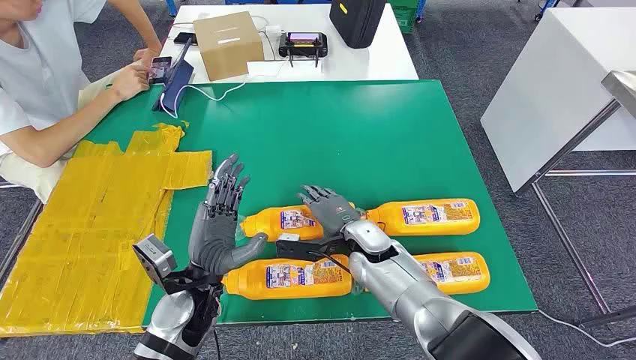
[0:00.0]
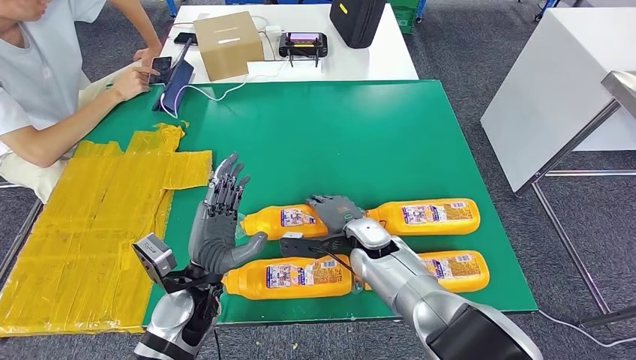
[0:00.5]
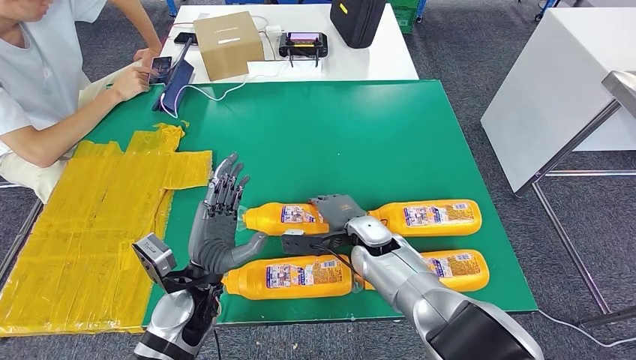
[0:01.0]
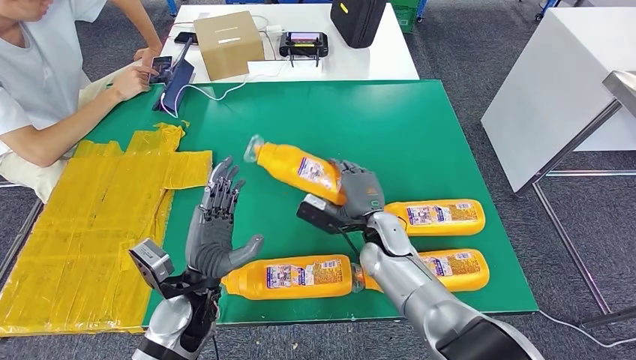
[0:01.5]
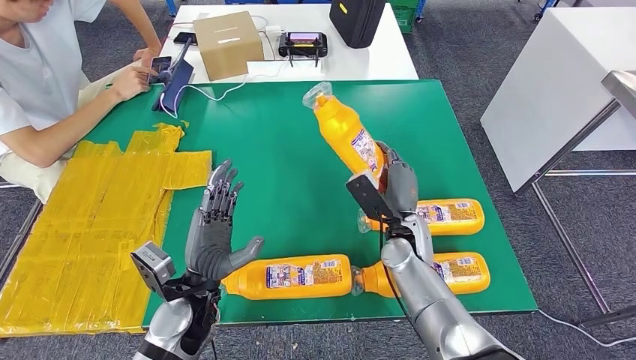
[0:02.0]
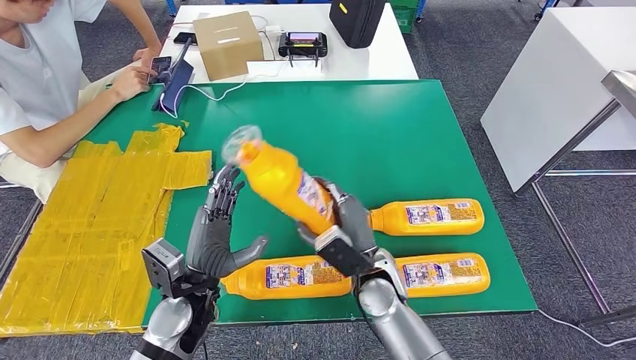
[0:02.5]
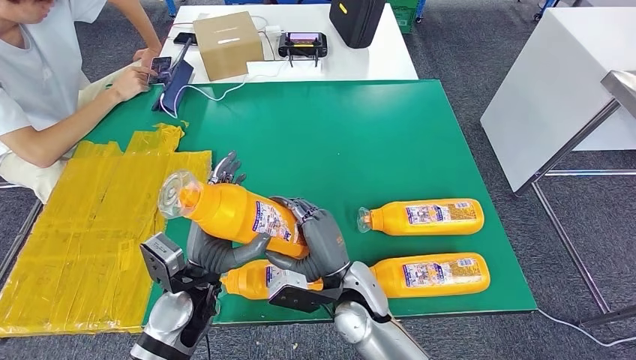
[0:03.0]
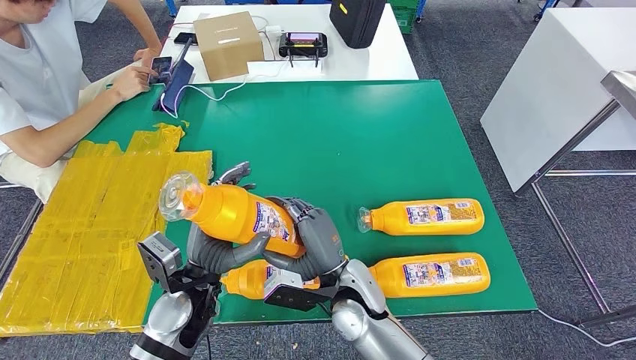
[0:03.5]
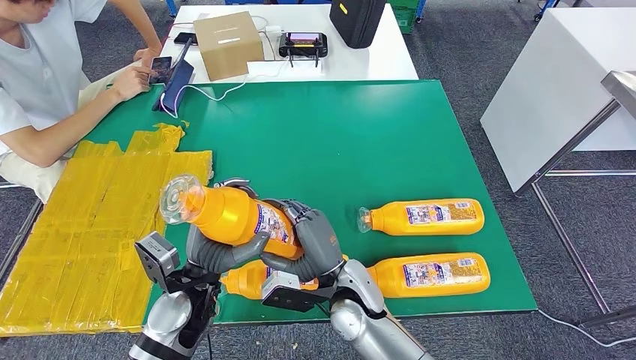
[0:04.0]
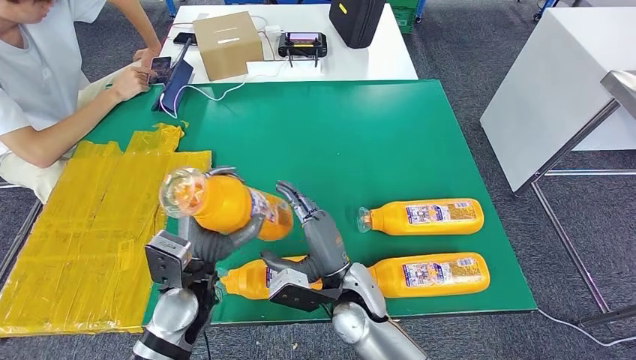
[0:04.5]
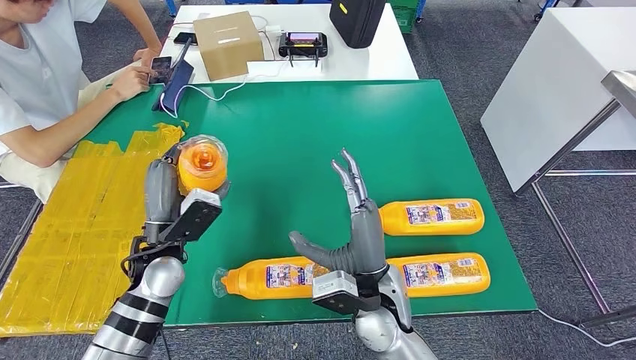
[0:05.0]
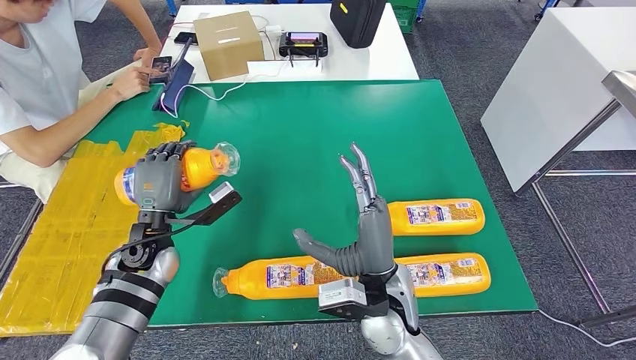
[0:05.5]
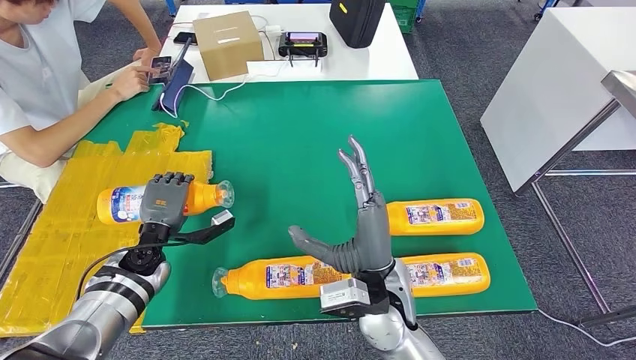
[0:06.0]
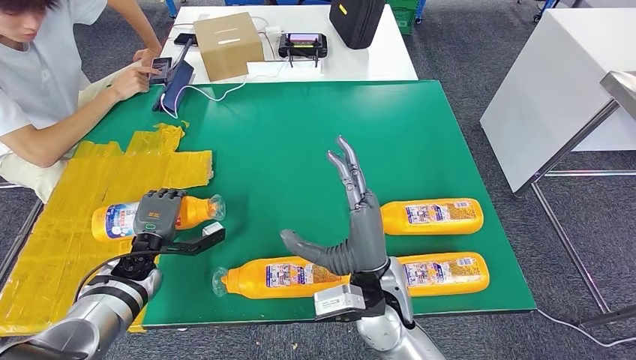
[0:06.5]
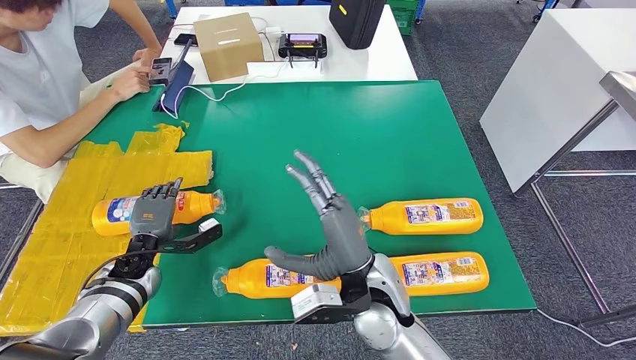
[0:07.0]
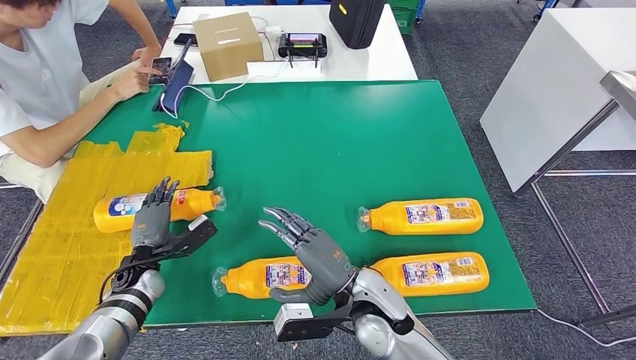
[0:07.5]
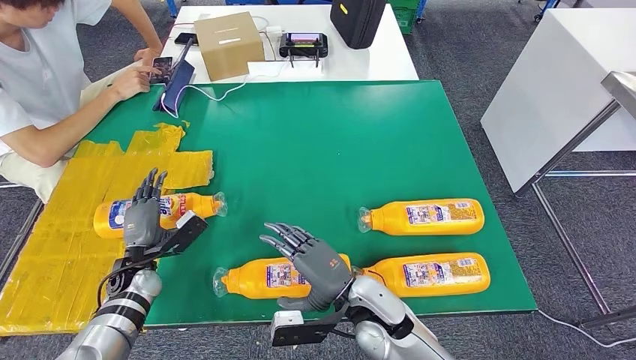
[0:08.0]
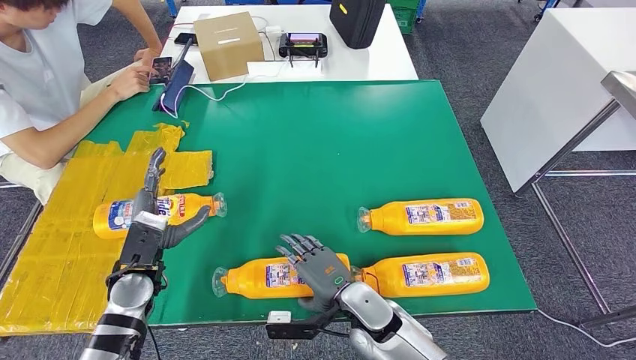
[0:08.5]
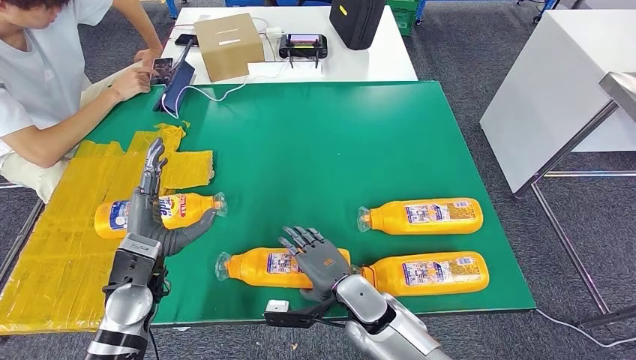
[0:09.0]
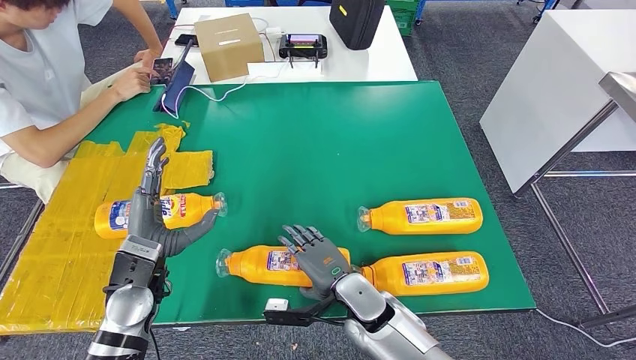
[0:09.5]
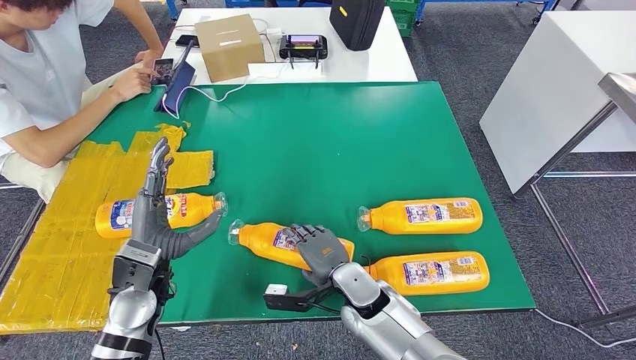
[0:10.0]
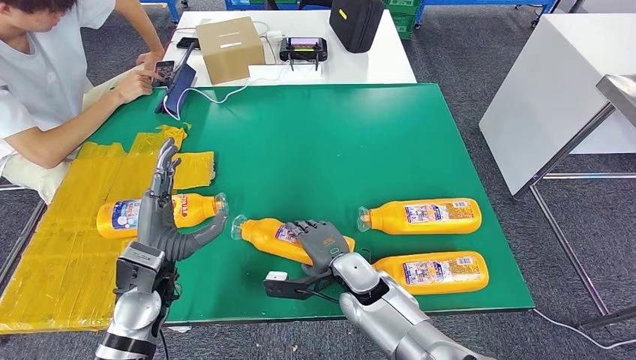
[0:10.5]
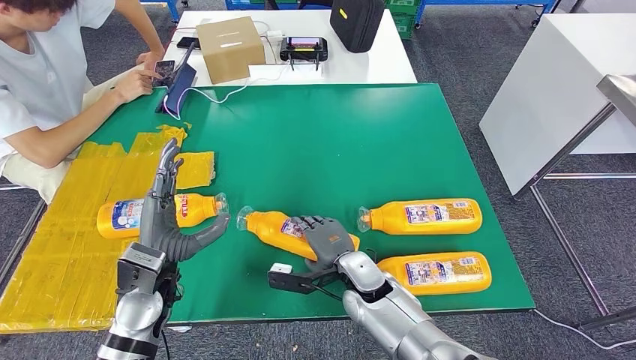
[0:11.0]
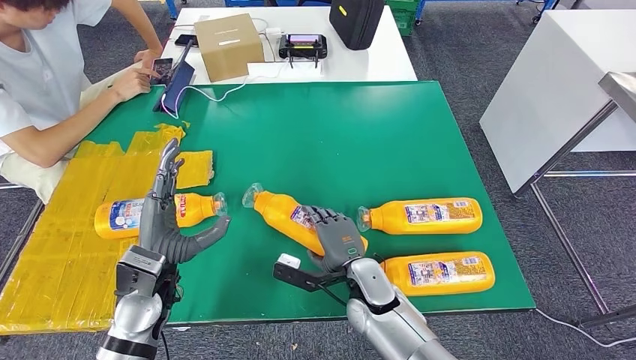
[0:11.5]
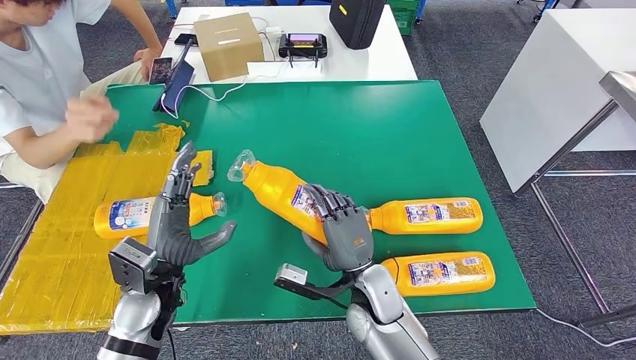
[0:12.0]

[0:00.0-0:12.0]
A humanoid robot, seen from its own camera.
Step, 0:00.0 to 0:02.5: Take the fast-moving consumer goods bottle from the table.
Step, 0:04.5 to 0:07.5: Flip the fast-moving consumer goods bottle to the front side.
0:02.0 to 0:04.0: The right hand heads to the left and backward, covering some 15 cm.
0:04.0 to 0:06.0: The right hand travels upward by roughly 5 cm. Meanwhile the left hand moves to the left, forward and downward, some 20 cm.
0:06.0 to 0:08.0: The right hand goes some 10 cm downward, while the left hand moves some 5 cm.
0:08.0 to 0:10.0: The left hand travels upward, to the right and backward by some 15 cm. Meanwhile the right hand shifts by some 5 cm.

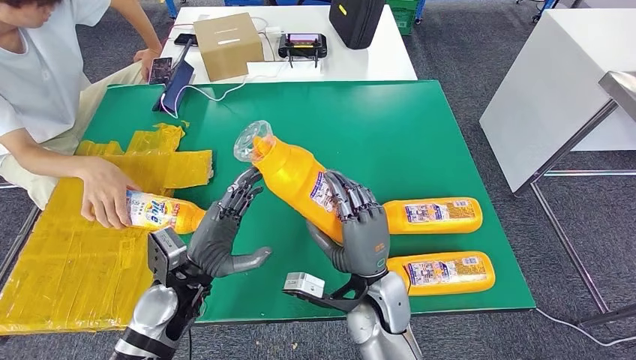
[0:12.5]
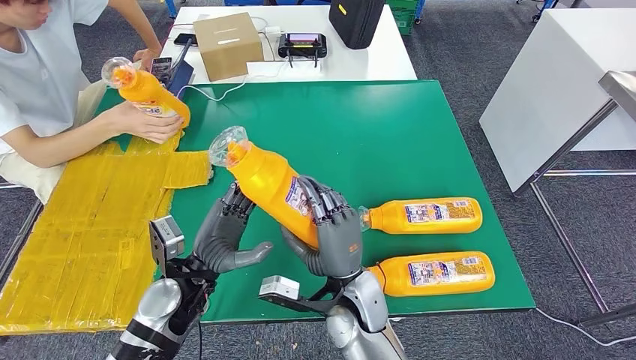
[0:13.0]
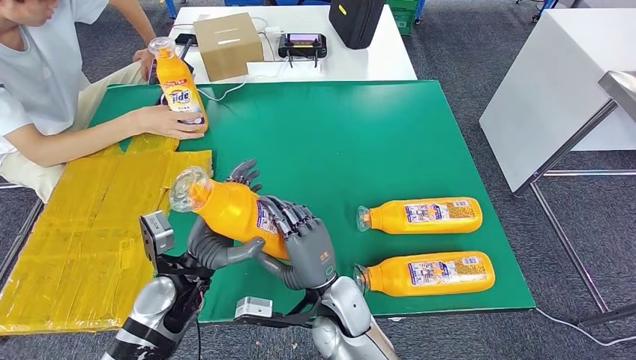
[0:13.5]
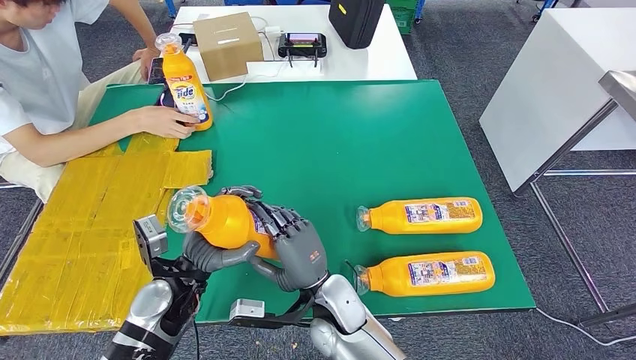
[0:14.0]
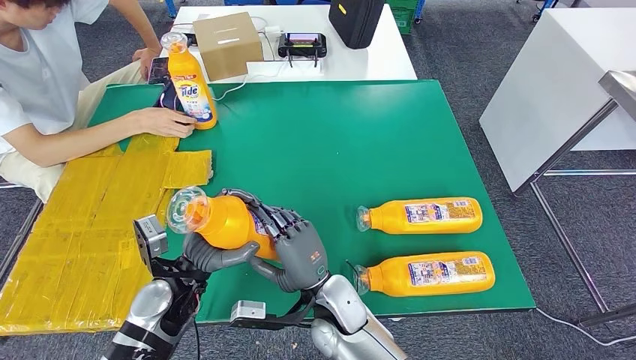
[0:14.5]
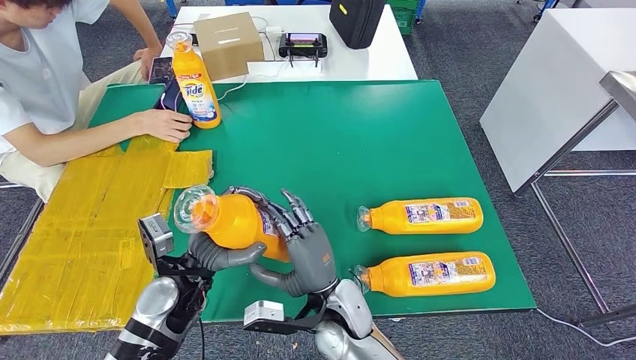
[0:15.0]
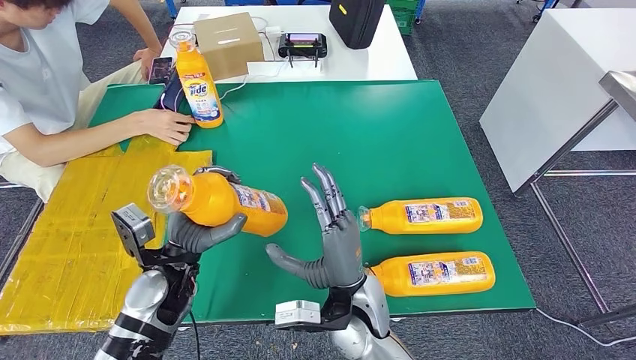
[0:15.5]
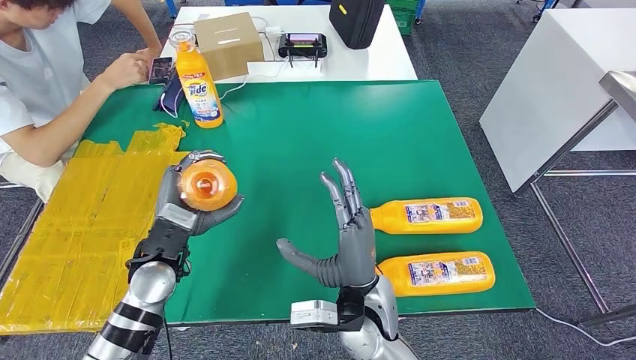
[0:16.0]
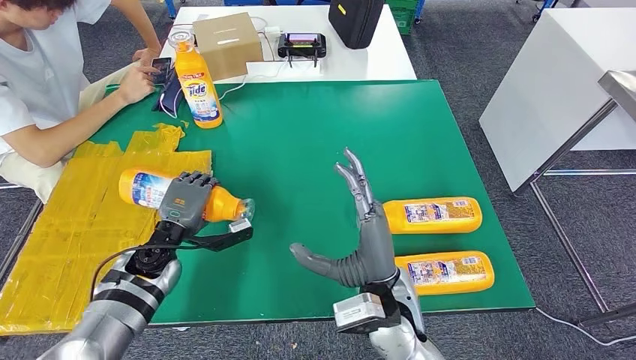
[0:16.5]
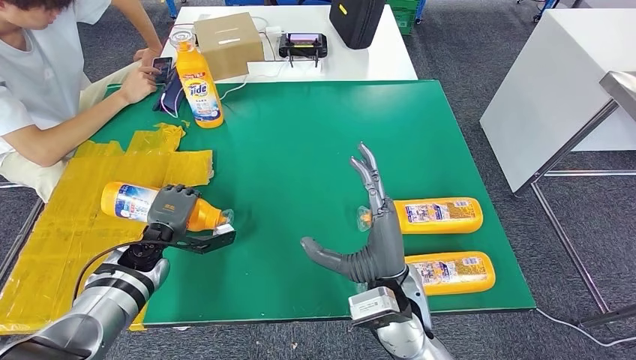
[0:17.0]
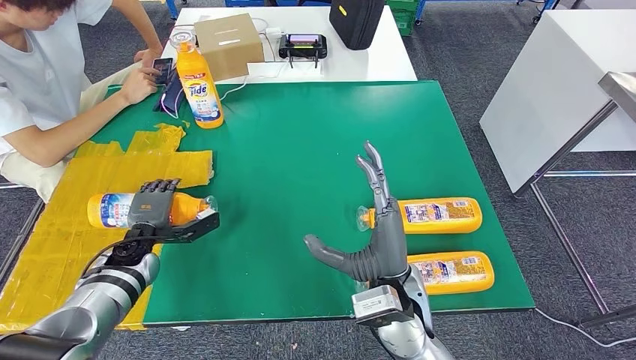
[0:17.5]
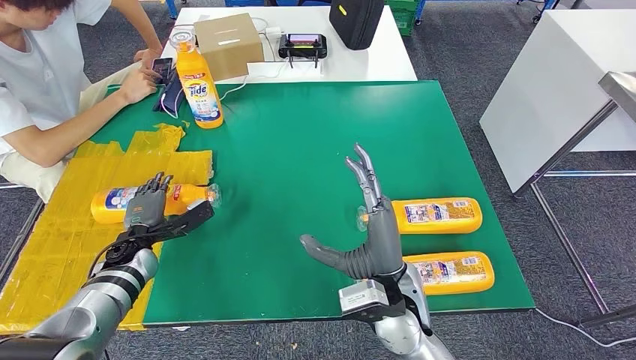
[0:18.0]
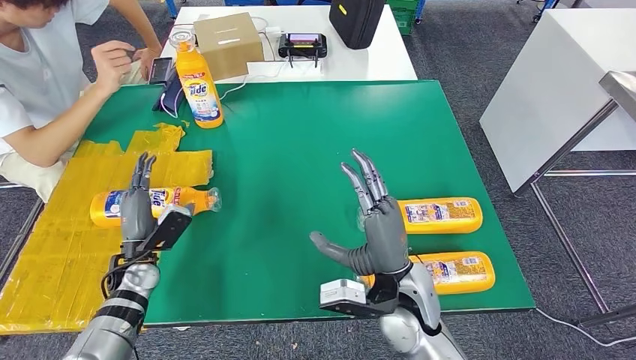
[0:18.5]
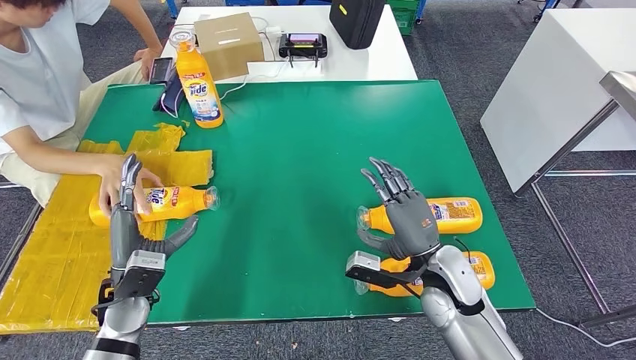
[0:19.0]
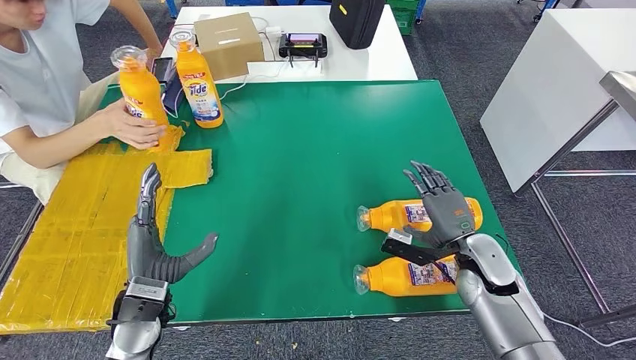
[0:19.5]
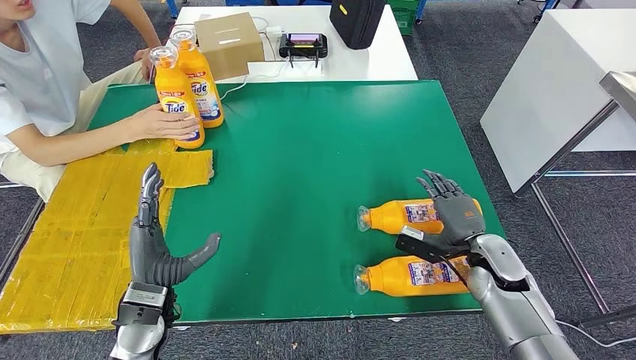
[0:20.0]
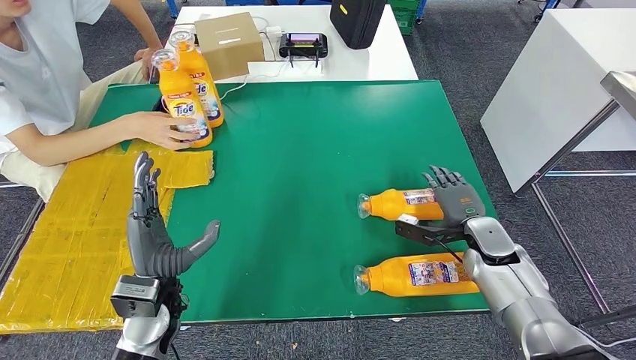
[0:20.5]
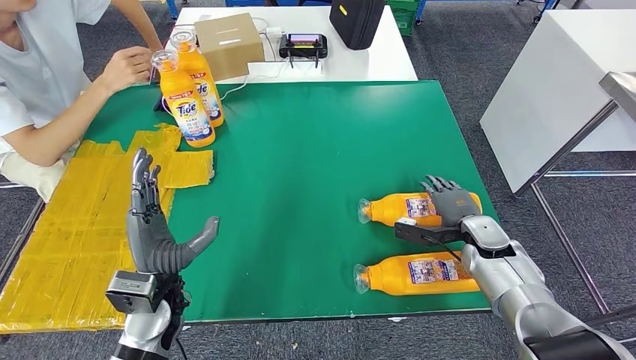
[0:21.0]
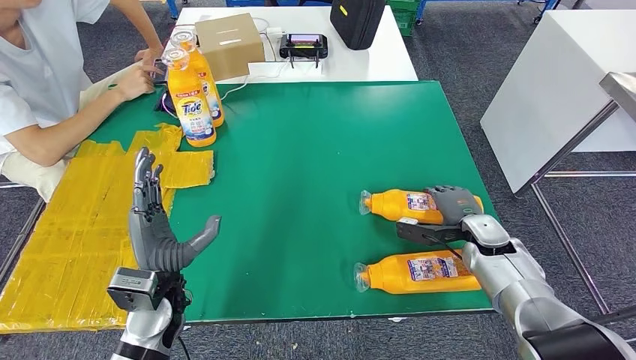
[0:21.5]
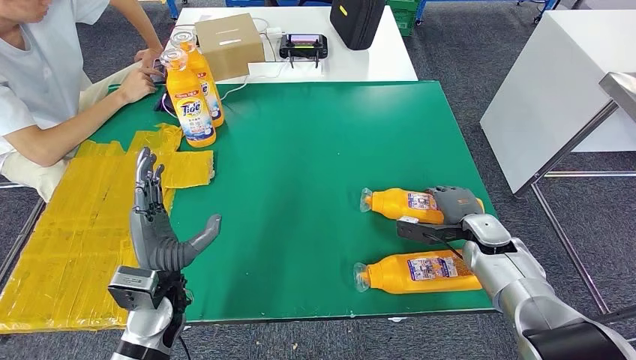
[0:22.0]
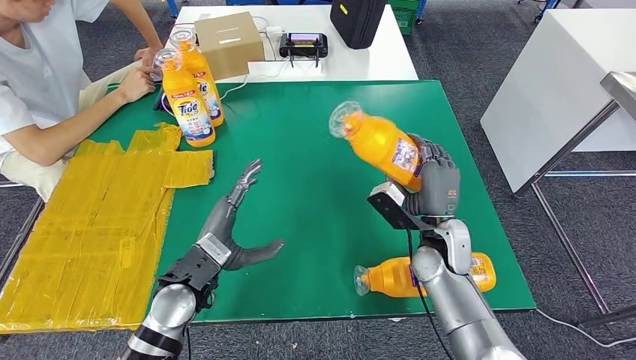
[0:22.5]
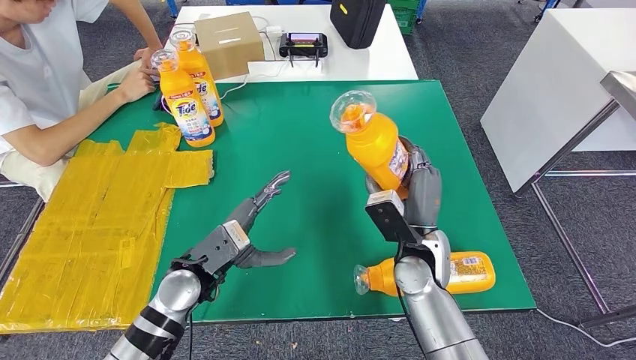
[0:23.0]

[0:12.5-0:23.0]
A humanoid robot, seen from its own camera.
Step, 0:14.0 to 0:18.0: Flip the fast-moving consumer goods bottle to the front side.
0:14.5 to 0:16.5: The left hand is displaced forward and to the left by roughly 10 cm, while the right hand heads upward and to the right, covering roughly 10 cm.
0:16.5 to 0:19.0: The right hand moves to the right, some 10 cm, while the left hand travels backward by about 10 cm.
